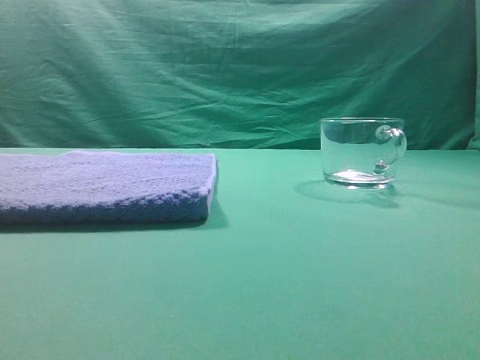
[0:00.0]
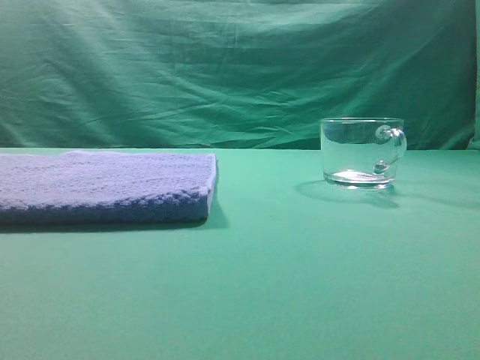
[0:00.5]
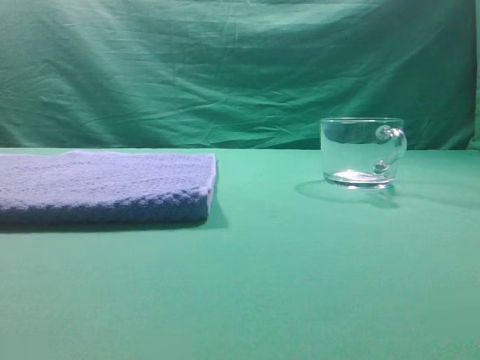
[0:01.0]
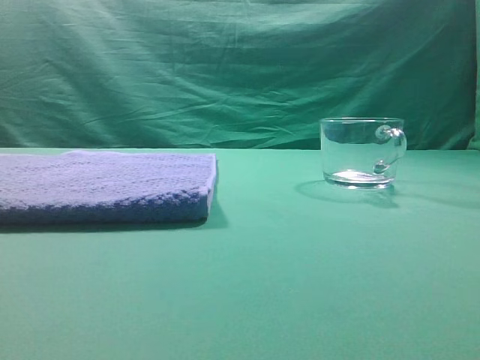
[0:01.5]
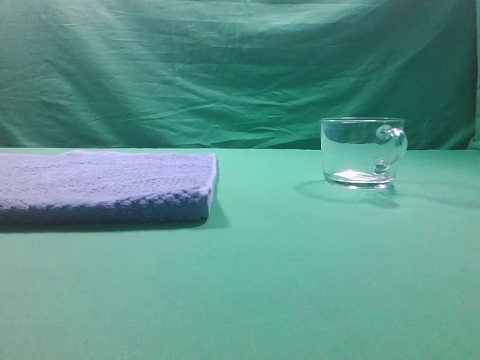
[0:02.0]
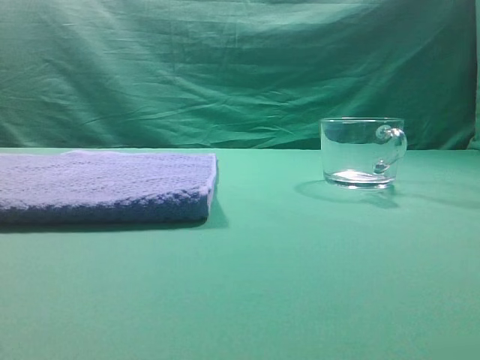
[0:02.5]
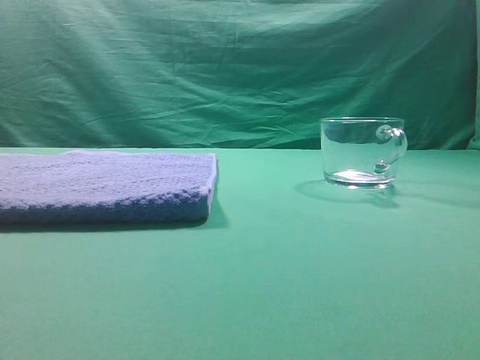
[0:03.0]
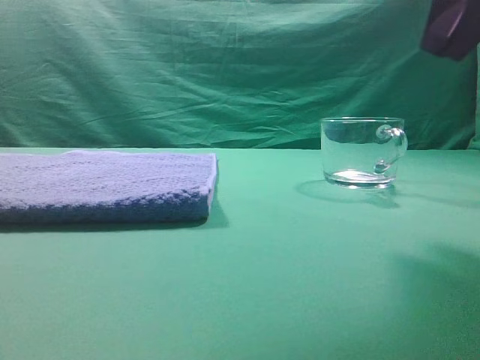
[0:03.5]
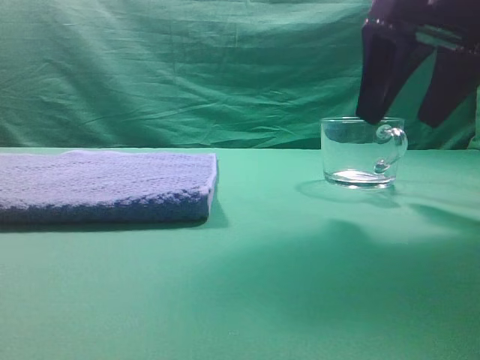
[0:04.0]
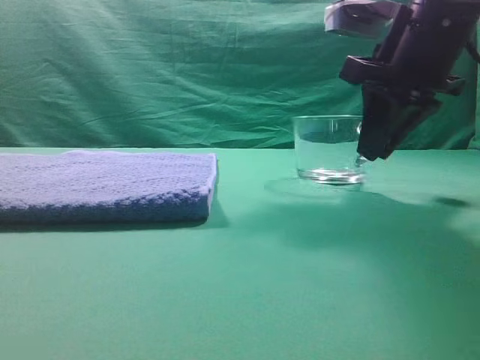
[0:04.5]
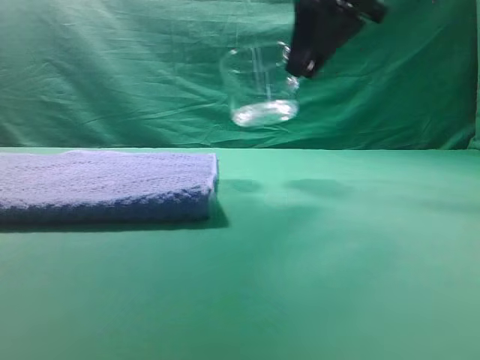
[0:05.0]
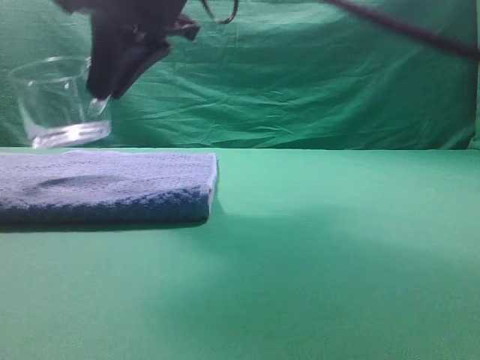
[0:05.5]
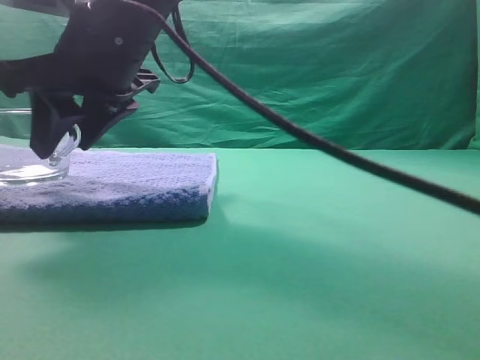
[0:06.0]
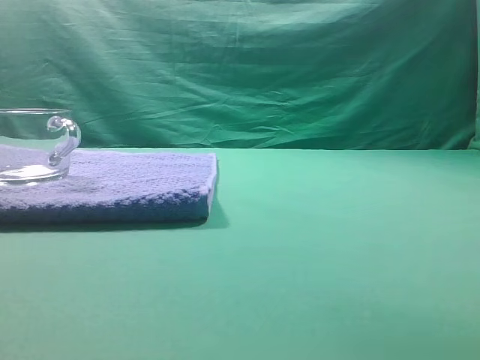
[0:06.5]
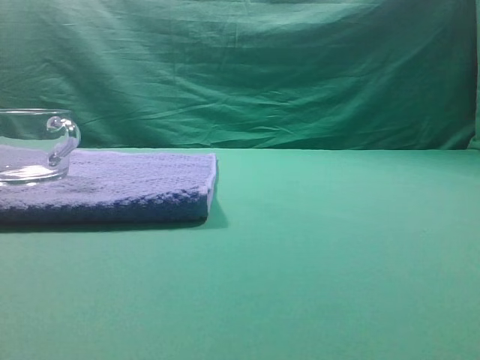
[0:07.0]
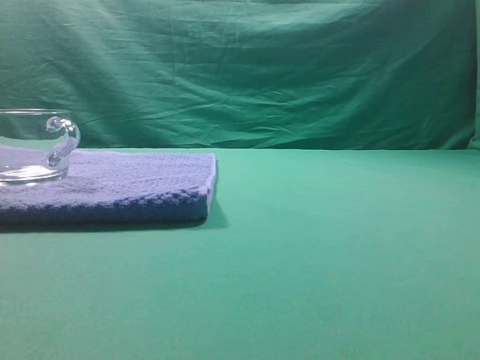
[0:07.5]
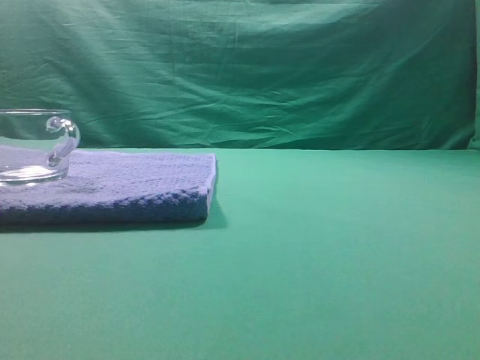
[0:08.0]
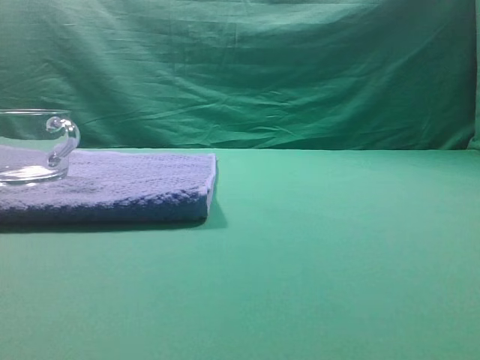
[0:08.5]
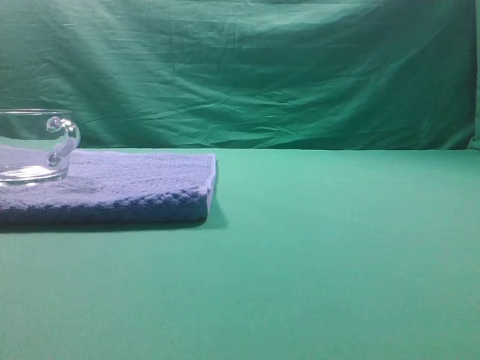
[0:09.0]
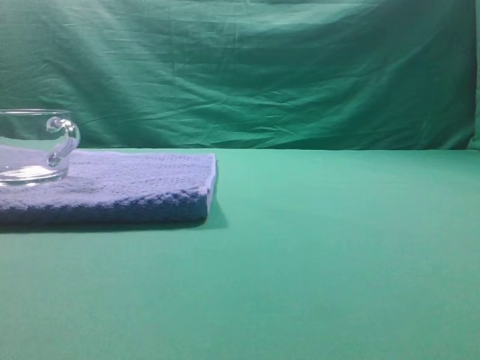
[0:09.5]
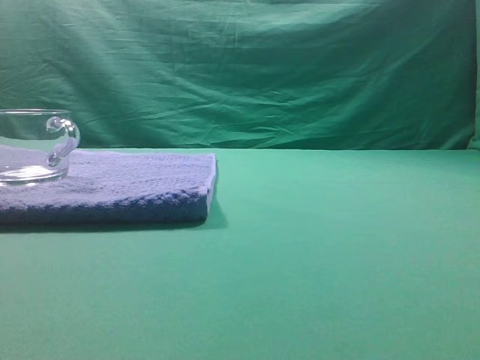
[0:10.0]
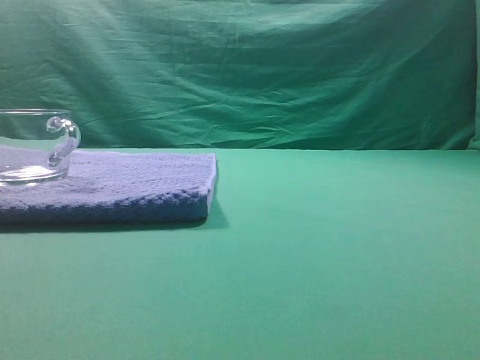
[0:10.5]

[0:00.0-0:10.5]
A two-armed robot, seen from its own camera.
Task of the whole recording: grasp the transparent glass cup and place it within the blue towel.
Step, 0:00.0 to 0:04.5: Grasp the transparent glass cup.
Step, 0:05.0 to 0:06.0: Place the glass cup on the blue zone.
